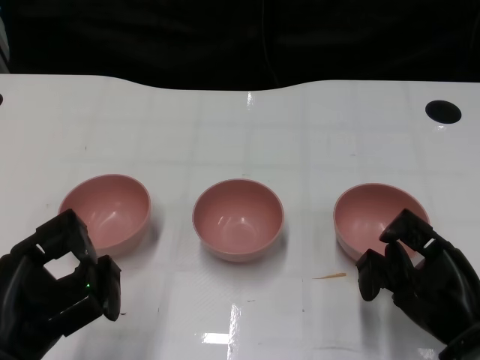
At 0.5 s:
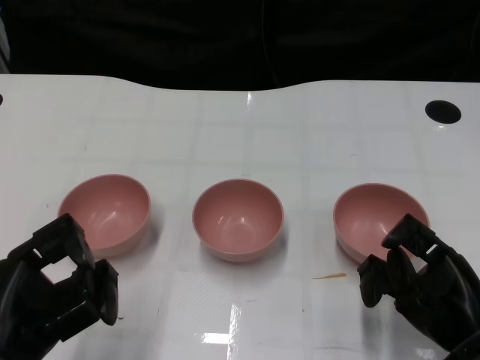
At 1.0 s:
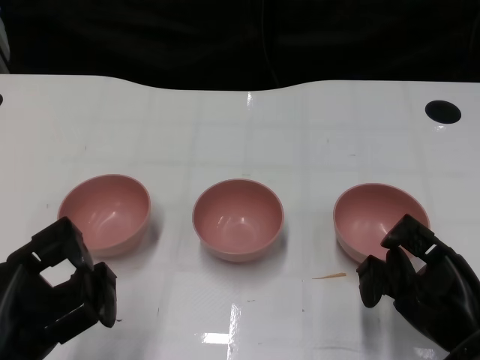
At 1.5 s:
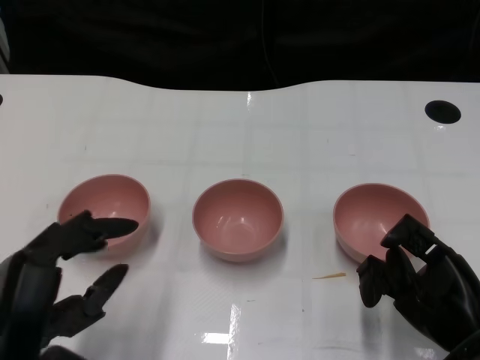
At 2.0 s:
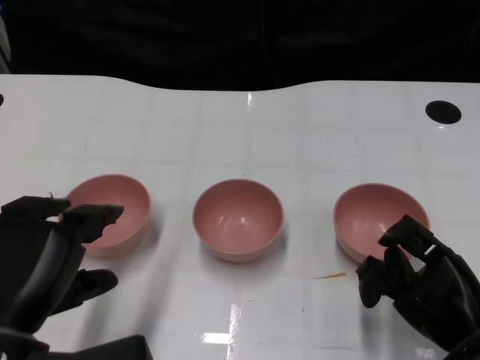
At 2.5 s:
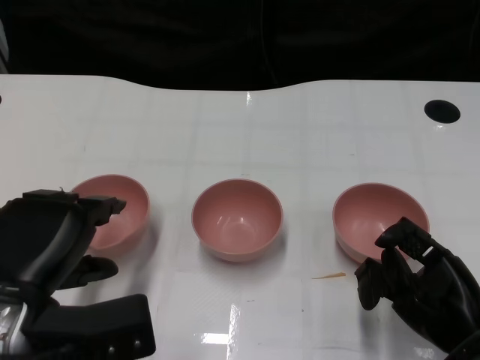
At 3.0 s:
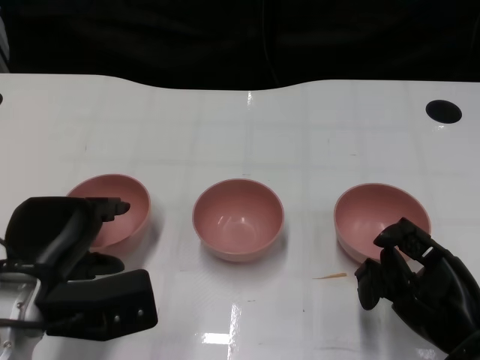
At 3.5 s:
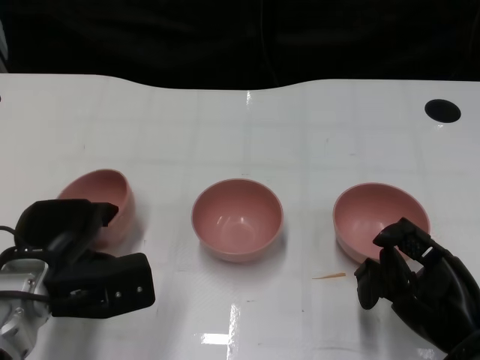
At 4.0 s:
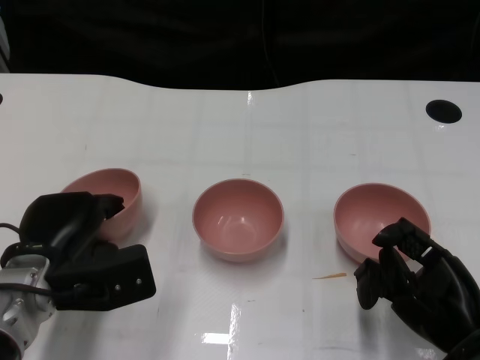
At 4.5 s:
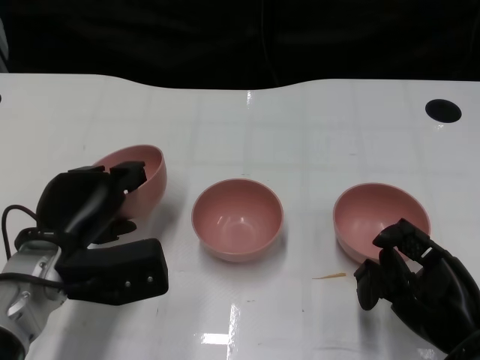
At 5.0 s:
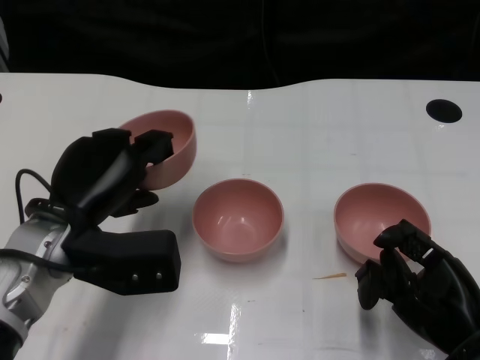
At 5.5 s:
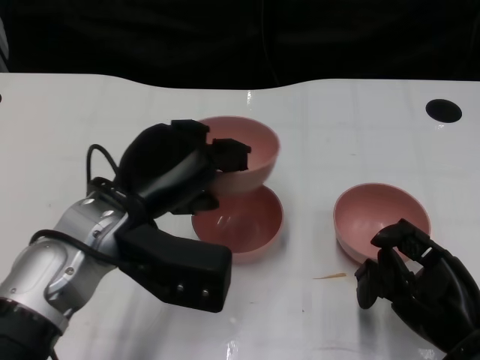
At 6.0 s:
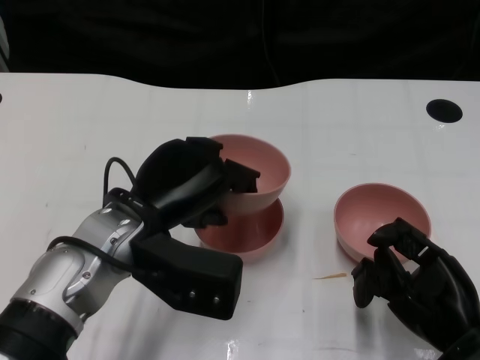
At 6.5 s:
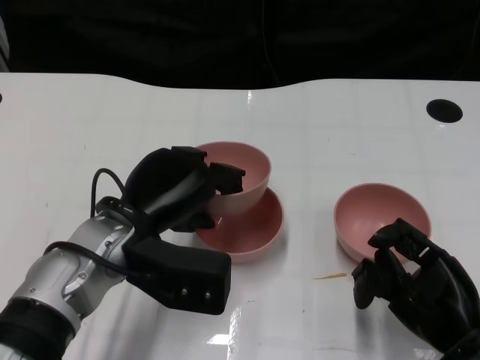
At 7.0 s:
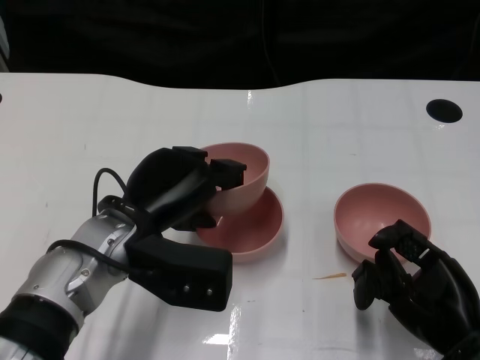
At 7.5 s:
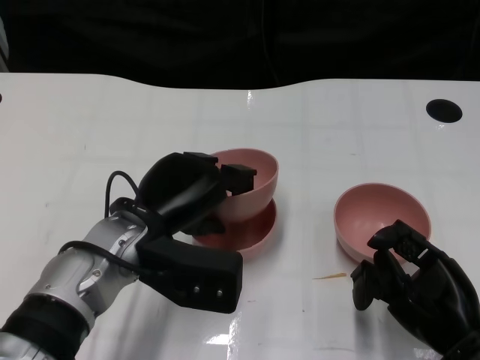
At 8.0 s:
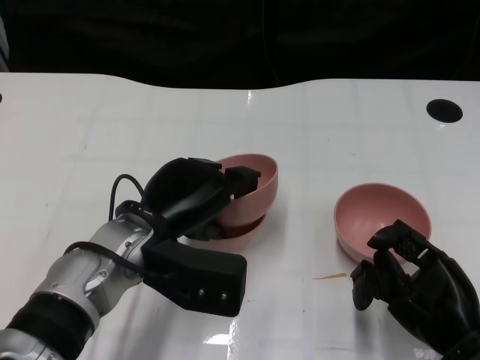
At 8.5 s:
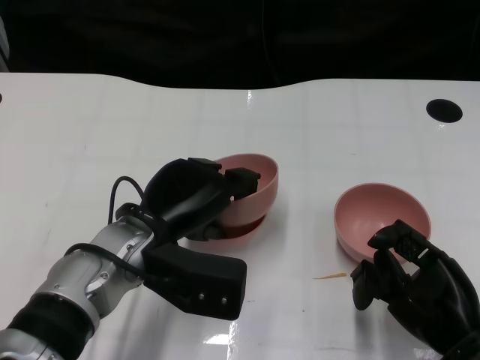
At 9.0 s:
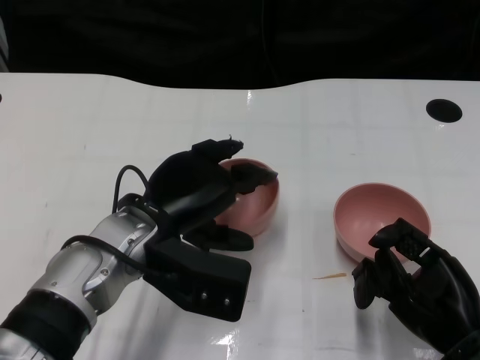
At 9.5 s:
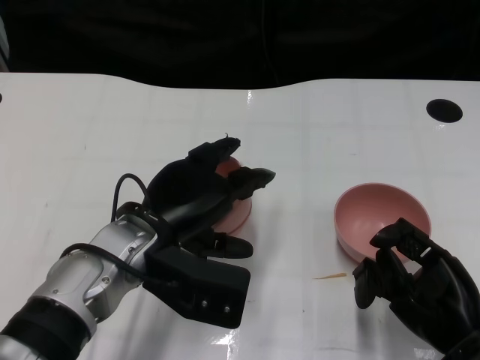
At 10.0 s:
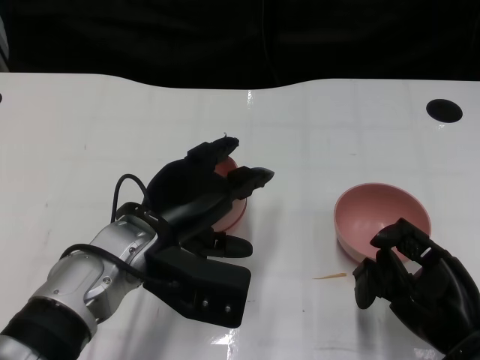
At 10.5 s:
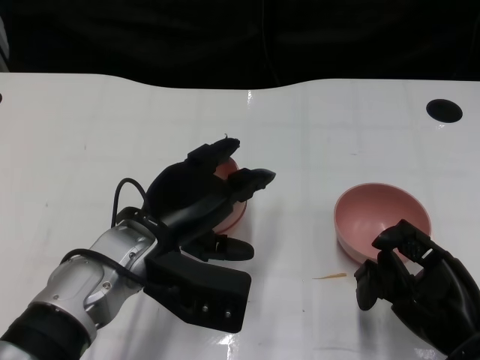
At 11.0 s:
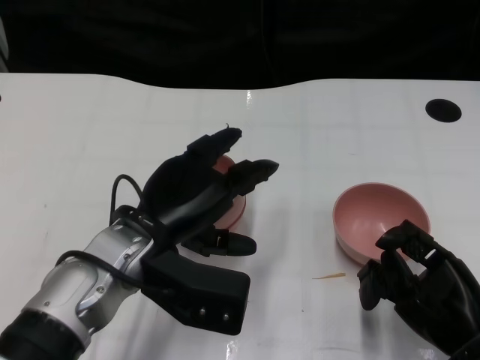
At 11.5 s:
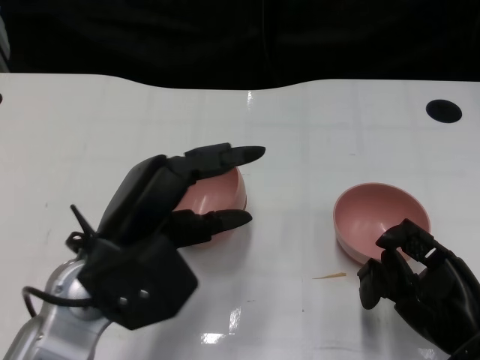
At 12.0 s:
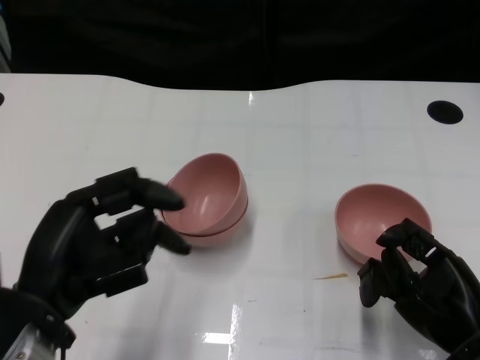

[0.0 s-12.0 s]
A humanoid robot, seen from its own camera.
Task of the whole recording: Pick up the bowl on one side of the table and place it on top of the middle bowl, then pick up the bowl on the other side of the table and place it on top of the middle bowls.
Step, 1.5 to 4.5 s: Grasp the bowl on the left with the left gripper.
Step, 5.0 to 9.5 s: Place the bowl on the left onto the bowl in the middle with left gripper.
2.0 to 4.0 s: The left hand is displaced forward and downward by approximately 15 cm.
4.0 to 6.0 s: The left hand goes approximately 10 cm to the right and upward.
6.0 to 10.0 s: There are only small adjustments of the hands.
10.0 to 12.0 s: The left hand goes some 15 cm backward and to the left.

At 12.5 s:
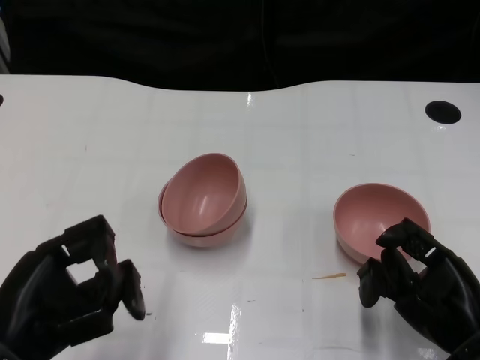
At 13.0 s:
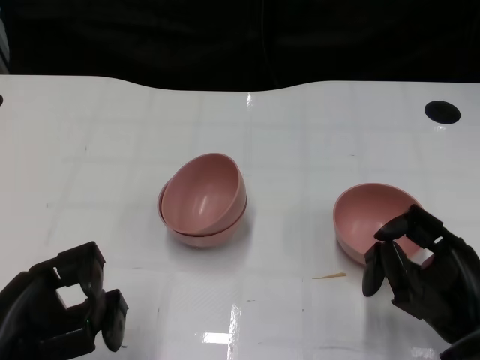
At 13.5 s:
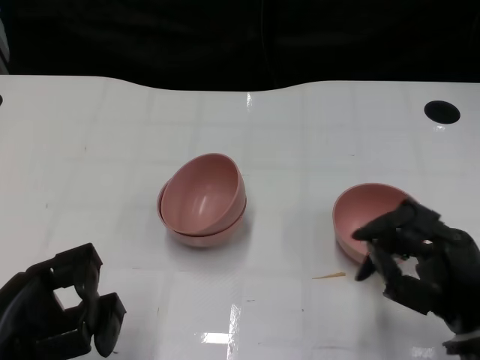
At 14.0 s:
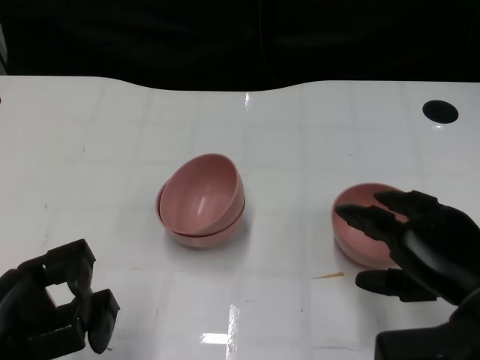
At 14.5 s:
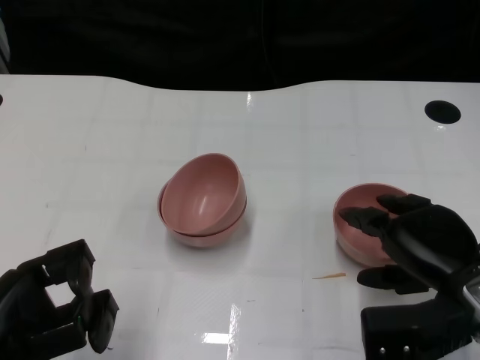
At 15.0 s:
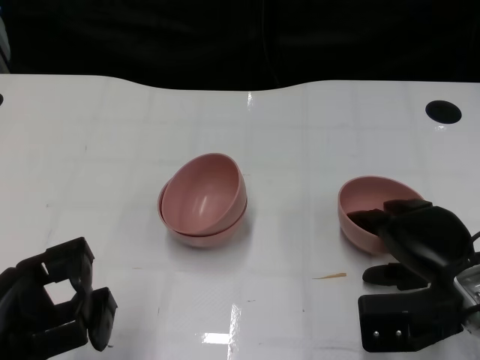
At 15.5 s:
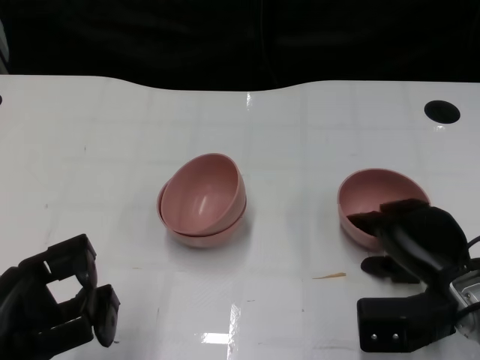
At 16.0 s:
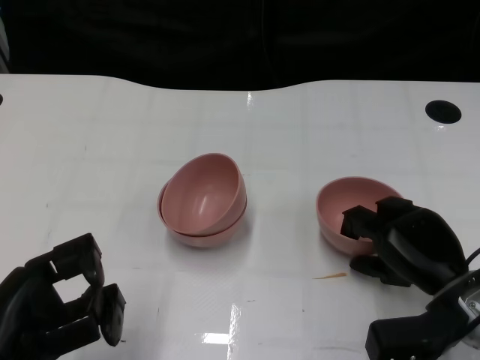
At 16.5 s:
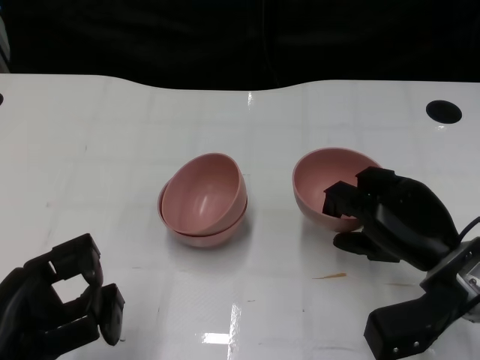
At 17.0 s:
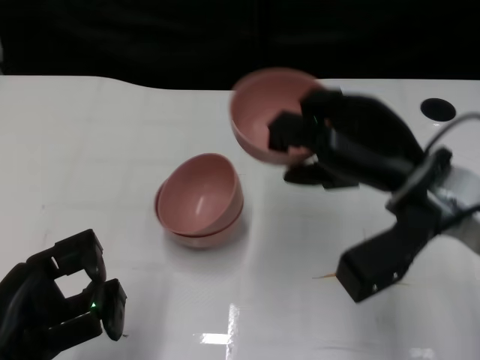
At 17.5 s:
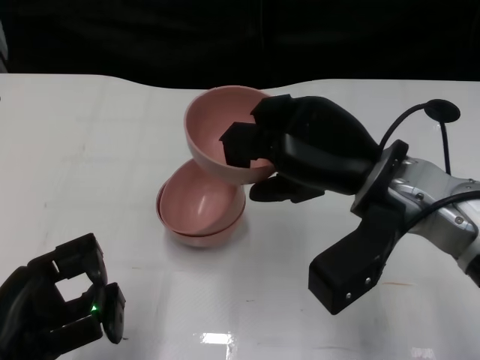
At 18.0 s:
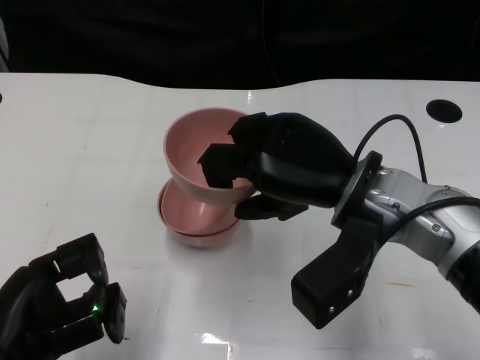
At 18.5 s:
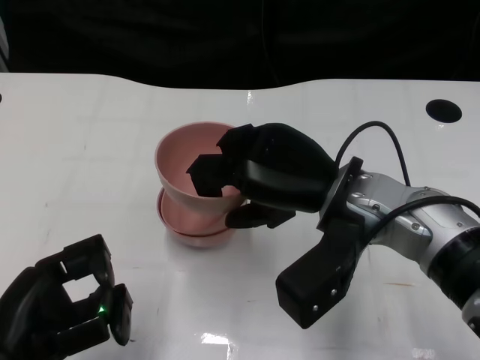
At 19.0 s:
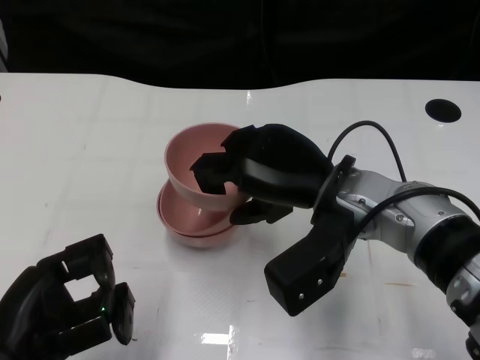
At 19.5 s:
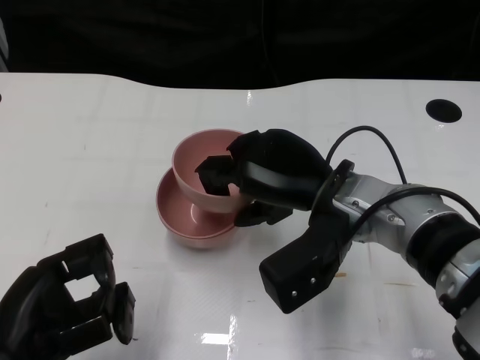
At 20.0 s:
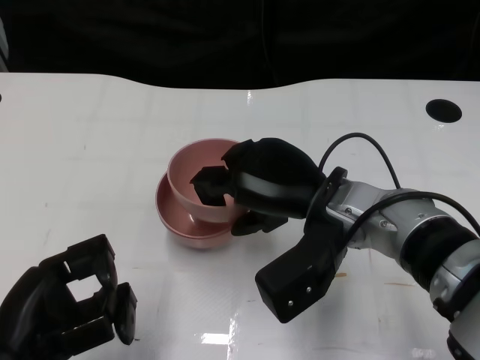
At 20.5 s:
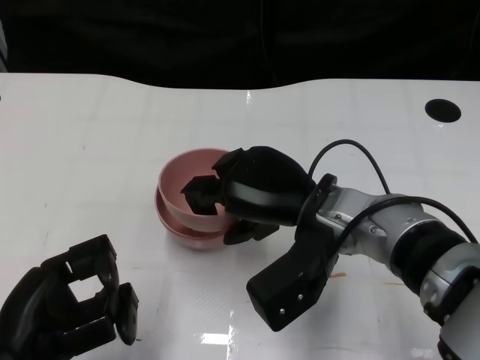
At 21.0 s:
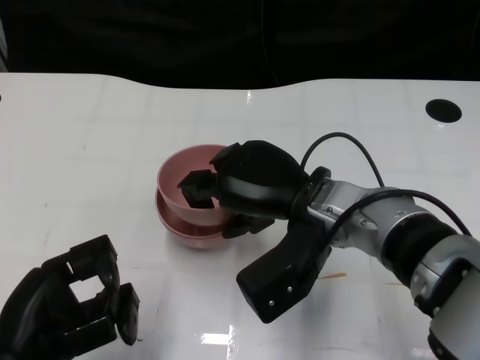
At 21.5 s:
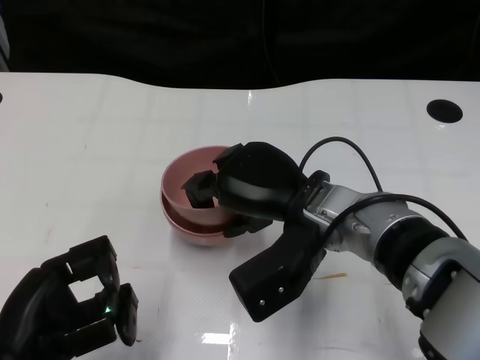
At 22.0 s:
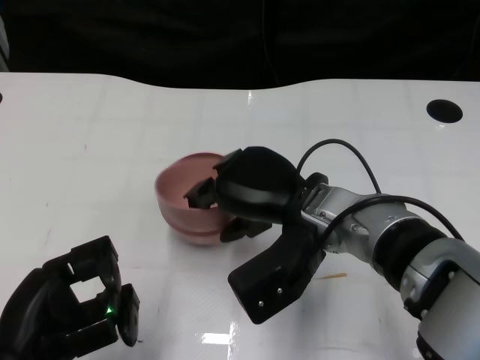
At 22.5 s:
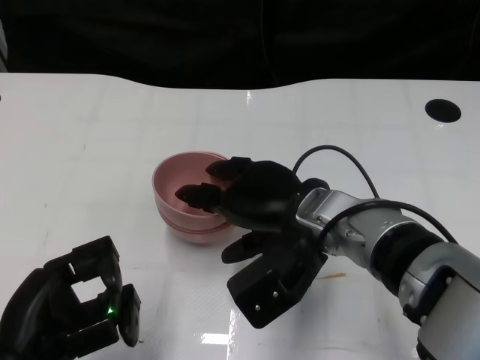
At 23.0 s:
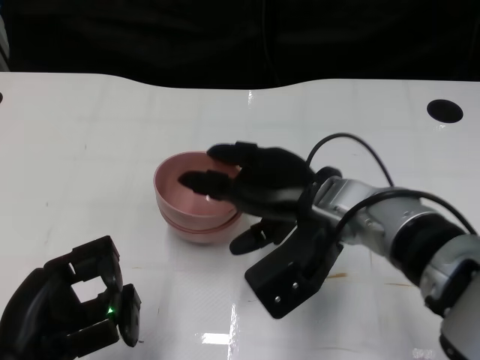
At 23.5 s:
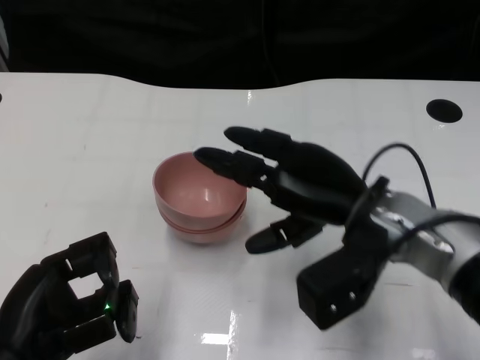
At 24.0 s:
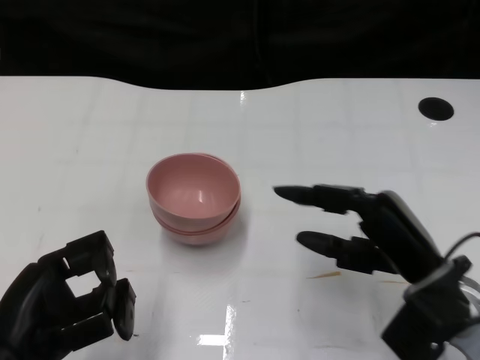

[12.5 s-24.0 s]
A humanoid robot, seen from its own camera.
Task of the whole recording: Pick up the bowl on one side of the table and place it on top of the middle bowl, then pick up the bowl on the other side of the table and place it on top of the middle bowls.
Step, 12.5 to 16.0 s: Grasp the bowl on the right with the right gripper.
Step, 16.5 to 22.5 s: Place the bowl on the right onto the bowl in the middle with right gripper.
12.5 to 14.5 s: The right hand ends up roughly 5 cm from where it was.
16.5 to 18.5 s: The right hand travels to the left and upward by approximately 15 cm.
18.5 to 20.0 s: The hands stay close to where they were, moving slightly.
22.0 to 24.0 s: The right hand heads to the right and backward, covering roughly 15 cm.

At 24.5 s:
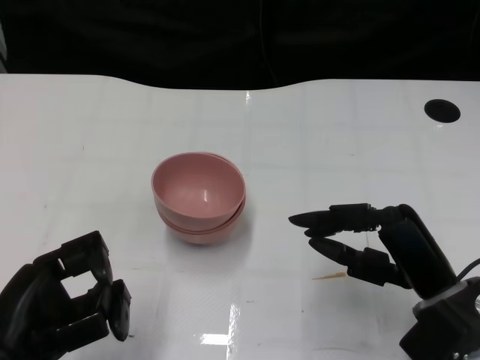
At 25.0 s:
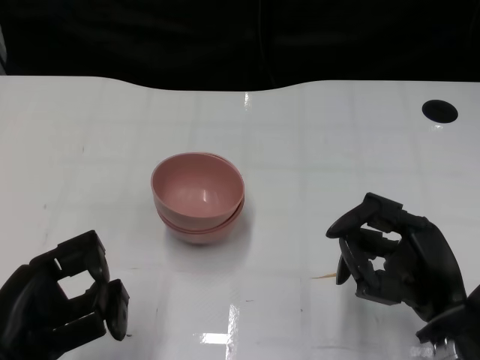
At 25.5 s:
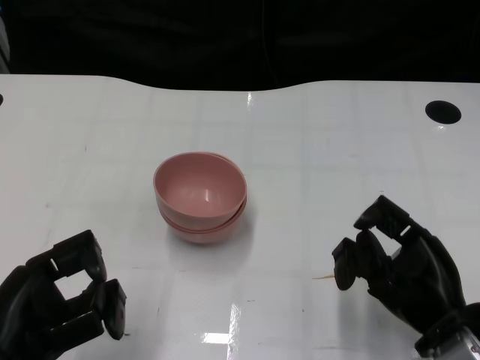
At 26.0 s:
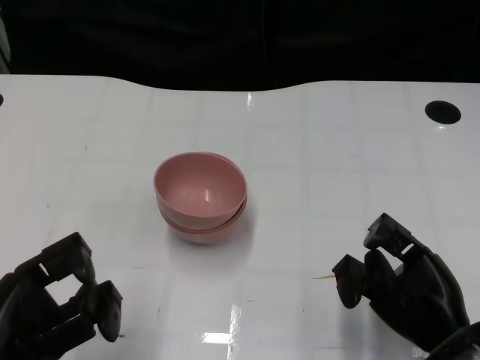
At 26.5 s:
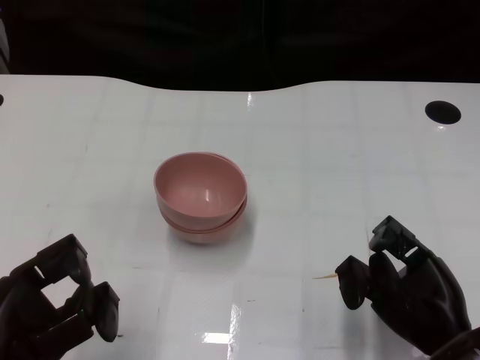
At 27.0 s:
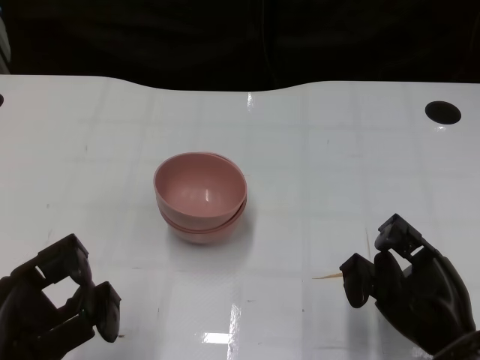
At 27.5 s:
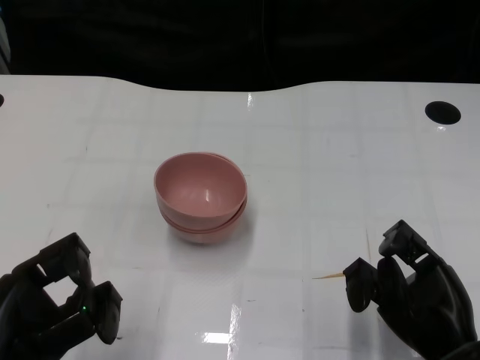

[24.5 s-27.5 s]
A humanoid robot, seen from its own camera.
Task of the whole recording: Pick up the bowl on one side of the table and place it on top of the middle bowl, then pick up the bowl on the other side of the table and place it on top of the middle bowls.
26.0 to 27.5 s: The hands make only small movements.
